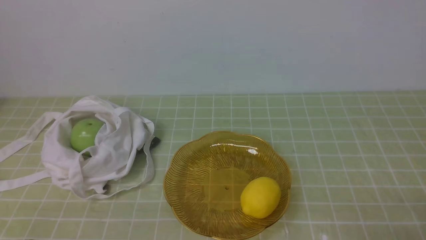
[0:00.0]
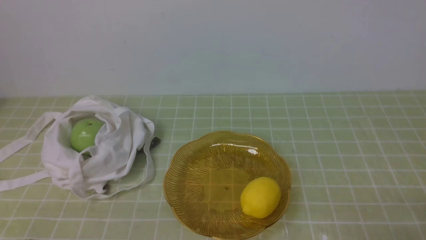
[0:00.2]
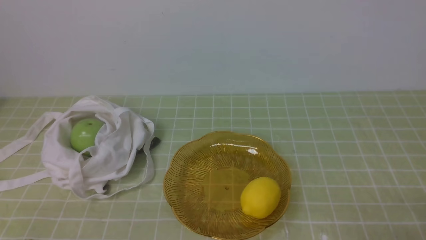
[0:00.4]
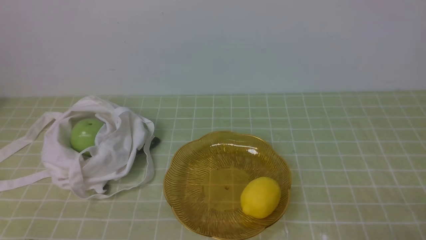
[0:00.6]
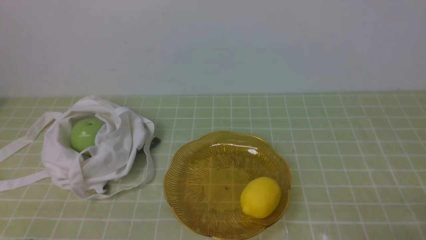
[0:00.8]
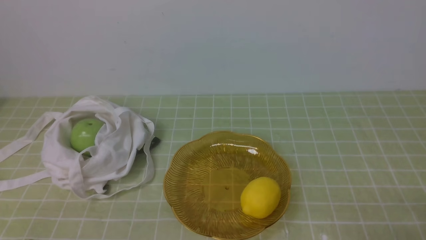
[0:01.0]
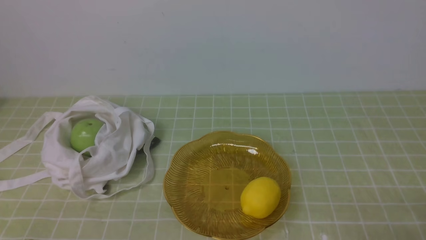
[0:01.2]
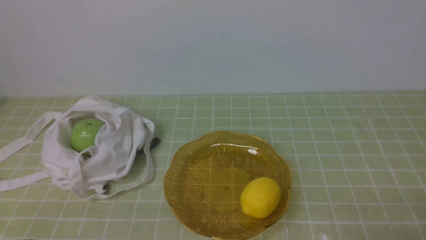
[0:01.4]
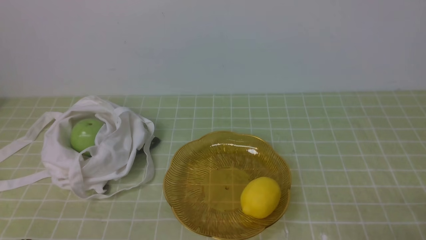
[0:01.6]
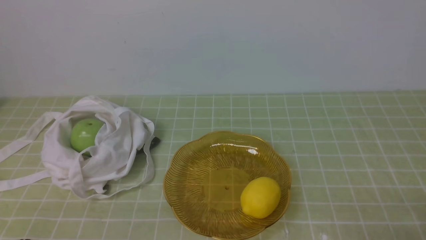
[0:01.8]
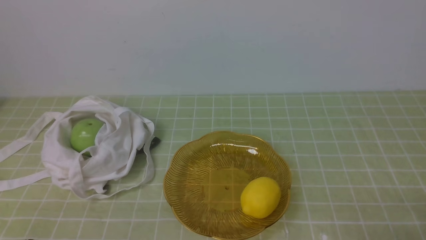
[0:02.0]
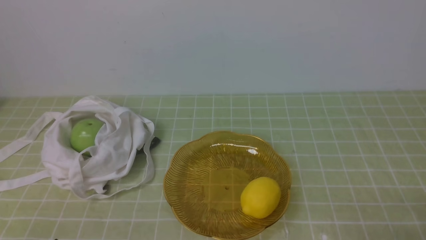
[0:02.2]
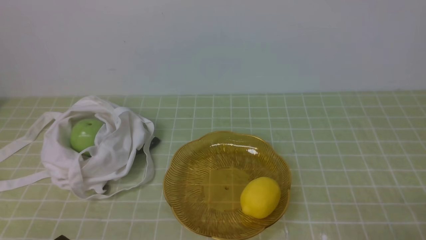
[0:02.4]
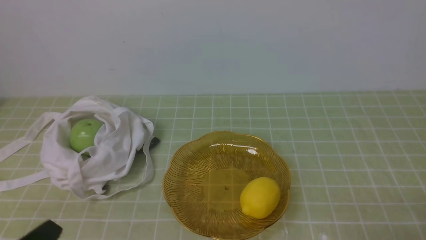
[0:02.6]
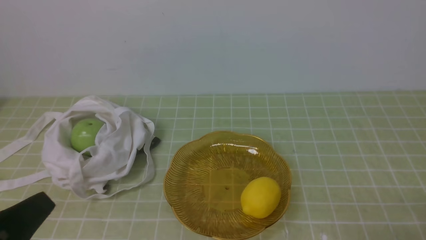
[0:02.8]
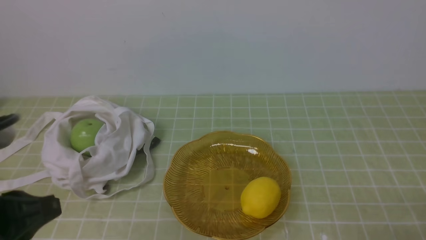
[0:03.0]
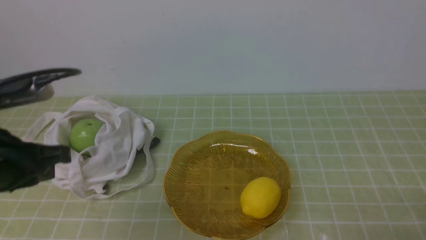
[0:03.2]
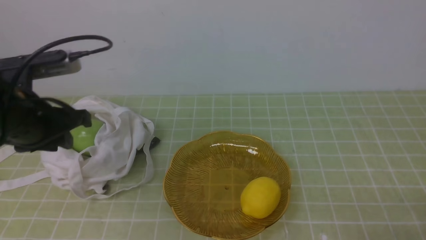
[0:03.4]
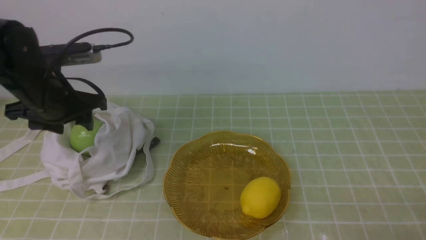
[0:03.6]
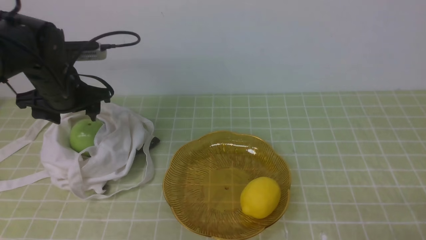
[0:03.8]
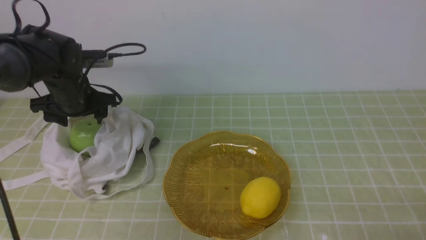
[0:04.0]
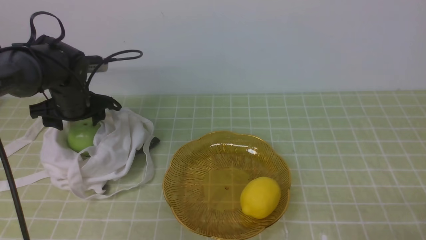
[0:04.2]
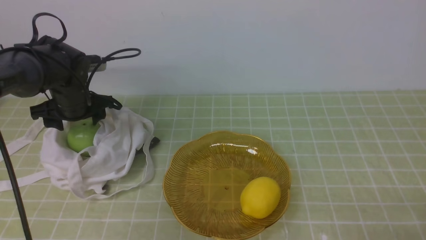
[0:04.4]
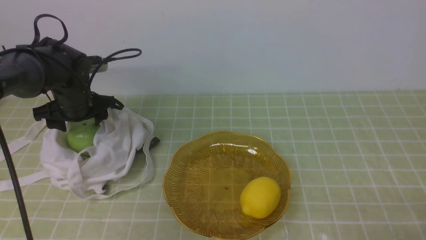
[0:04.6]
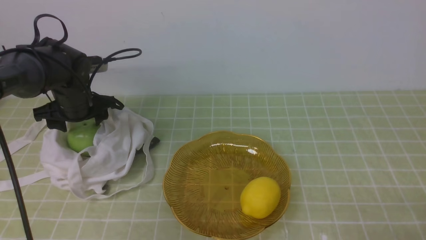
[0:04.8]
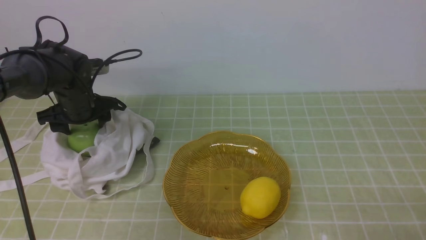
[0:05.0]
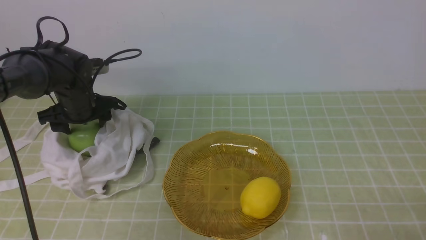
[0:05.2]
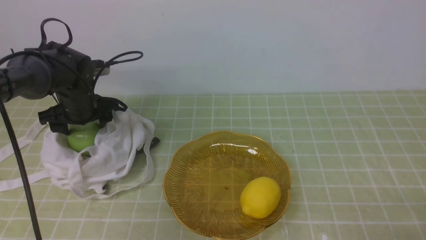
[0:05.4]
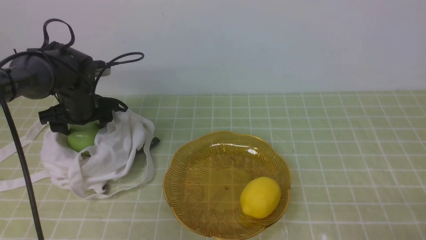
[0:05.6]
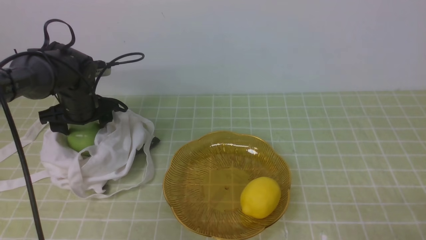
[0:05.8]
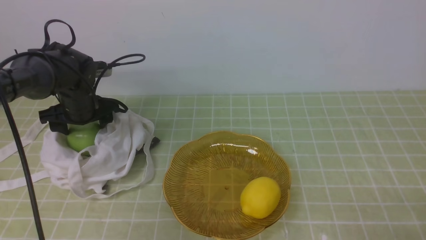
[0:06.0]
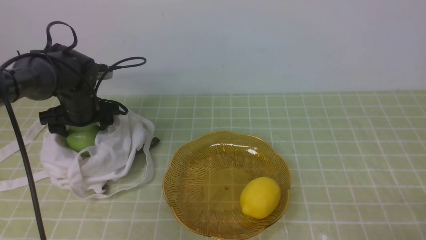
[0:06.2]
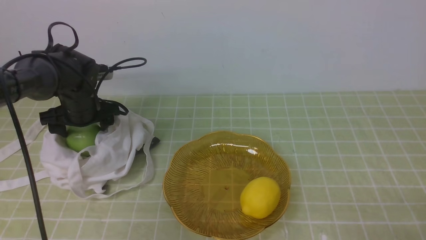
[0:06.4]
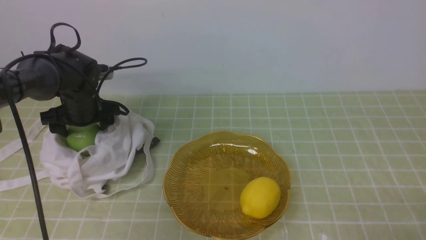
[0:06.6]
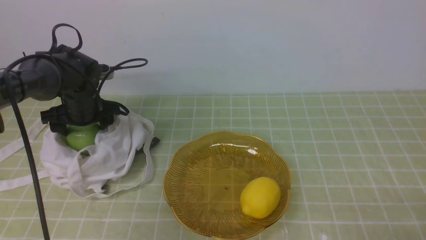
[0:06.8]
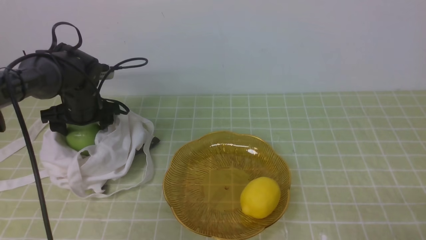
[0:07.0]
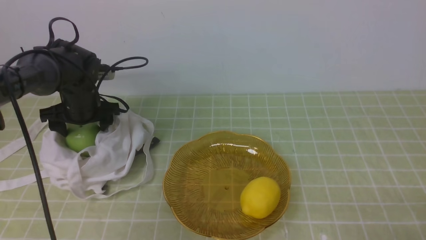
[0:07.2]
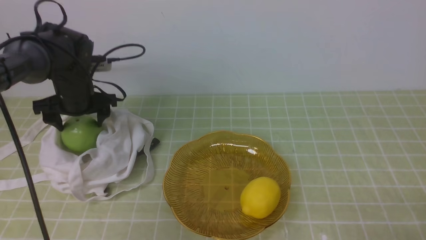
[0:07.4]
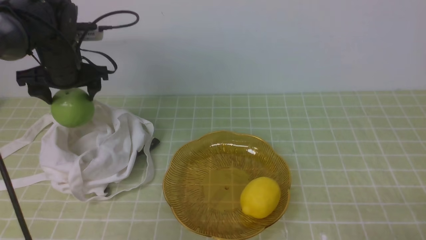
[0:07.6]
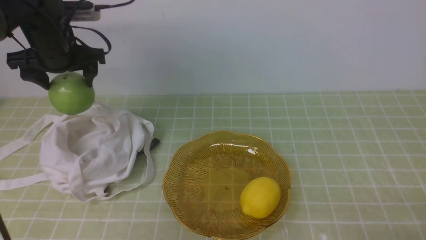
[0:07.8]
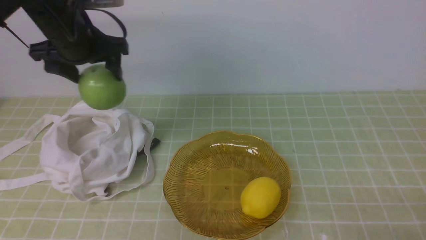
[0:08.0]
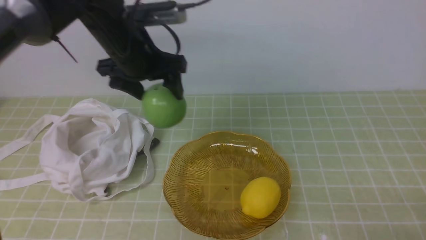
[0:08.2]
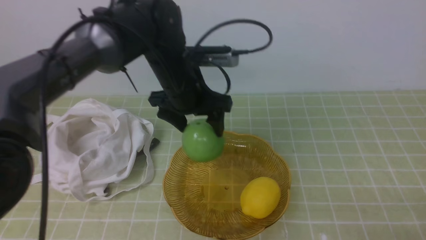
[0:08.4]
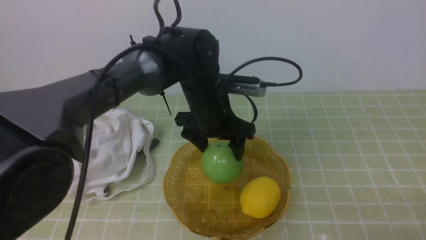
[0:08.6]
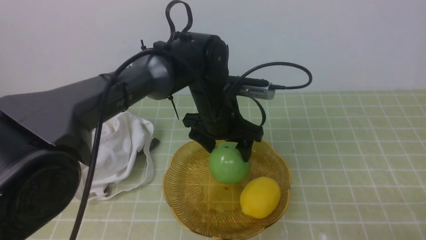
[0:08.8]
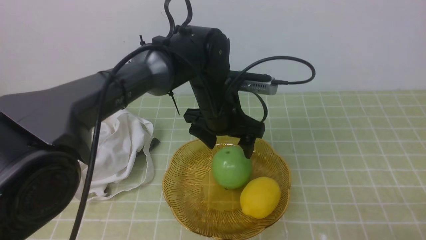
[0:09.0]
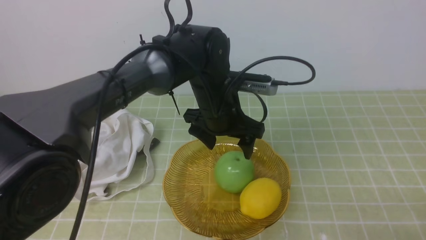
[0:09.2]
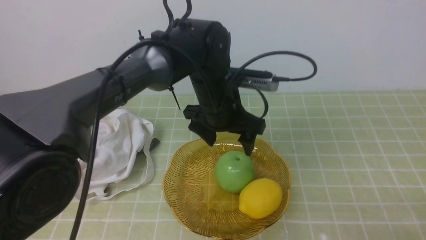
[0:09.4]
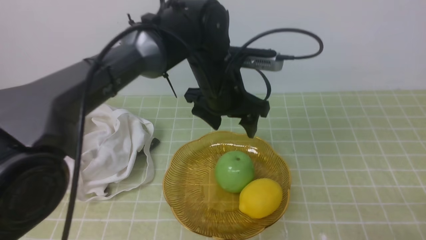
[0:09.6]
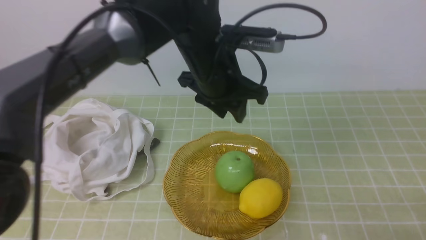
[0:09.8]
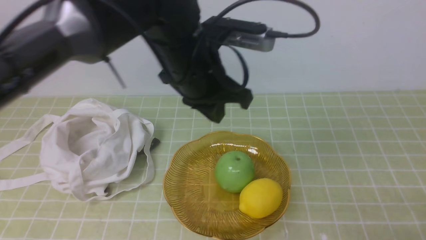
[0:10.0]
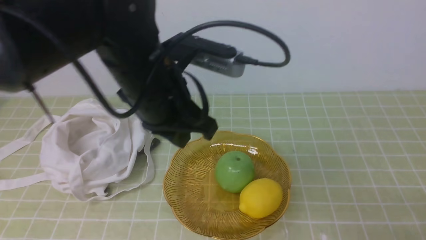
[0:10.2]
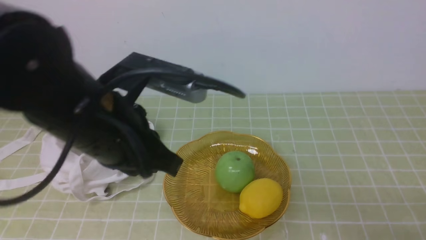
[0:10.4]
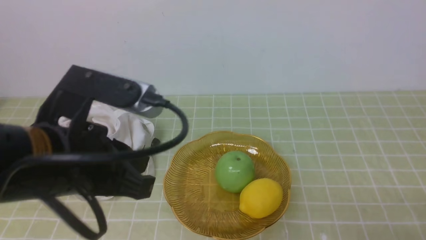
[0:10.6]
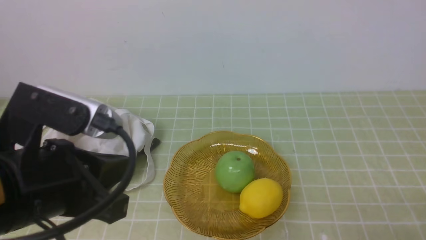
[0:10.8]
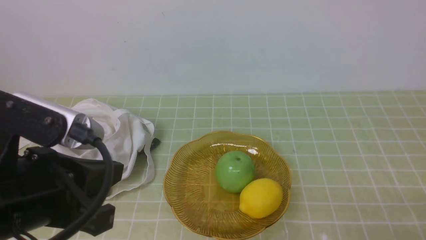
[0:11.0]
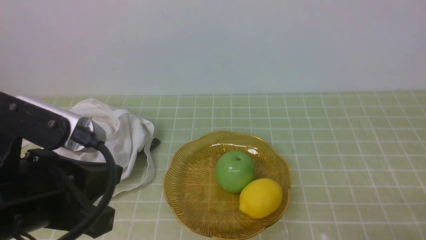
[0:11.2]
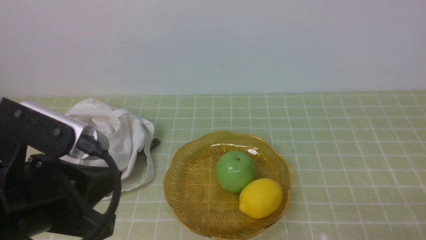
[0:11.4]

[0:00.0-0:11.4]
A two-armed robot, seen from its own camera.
Step, 0:00.0 to 0:07.2: use the left arm to grab an apple from the bag.
Step, 0:07.4 to 0:09.0: use the left arm to put the apple into the empty plate on the right.
0:01.4 to 0:02.8: The left gripper moves upward, roughly 5 cm.
0:02.8 to 0:04.2: The left gripper shifts approximately 35 cm forward, and opens its fingers.
0:04.2 to 0:07.2: There are only small adjustments of the grippers.
0:07.2 to 0:08.6: The left gripper moves to the right, approximately 20 cm.
0:08.6 to 0:10.0: The left gripper travels upward by about 5 cm, and closes its fingers.
0:10.0 to 0:11.4: The left gripper is displaced backward and to the left by roughly 25 cm.

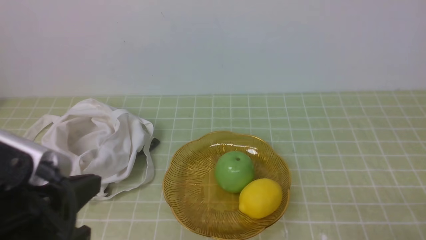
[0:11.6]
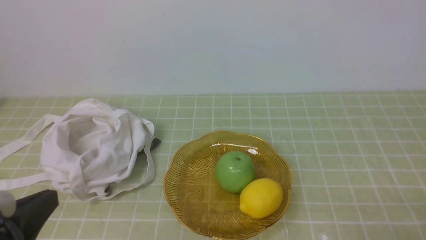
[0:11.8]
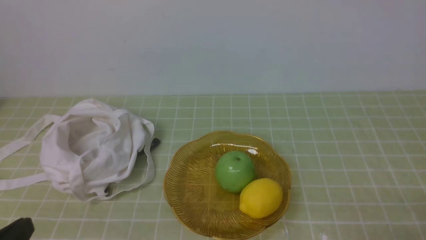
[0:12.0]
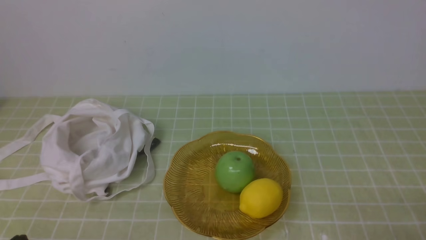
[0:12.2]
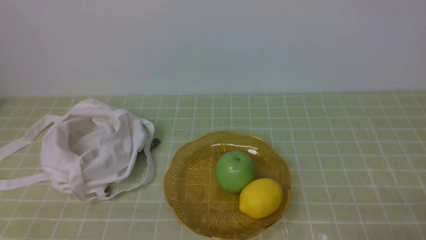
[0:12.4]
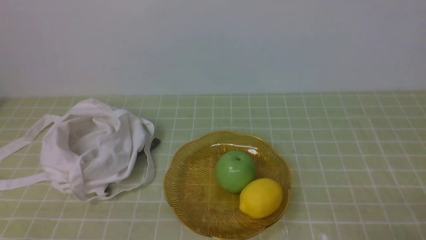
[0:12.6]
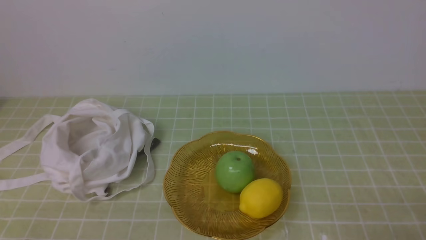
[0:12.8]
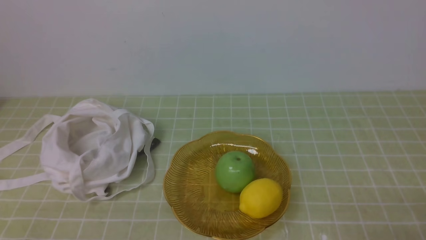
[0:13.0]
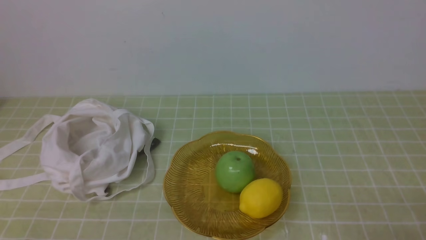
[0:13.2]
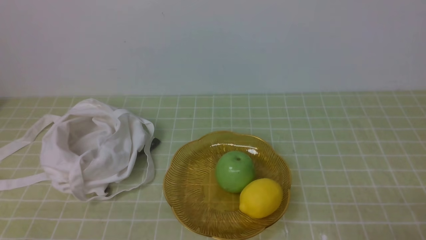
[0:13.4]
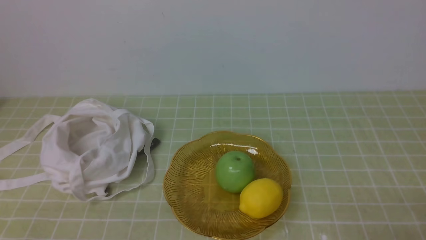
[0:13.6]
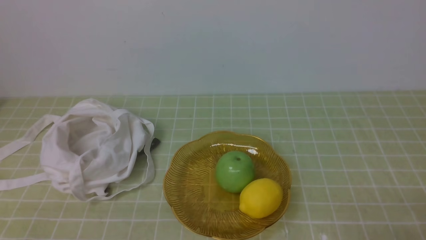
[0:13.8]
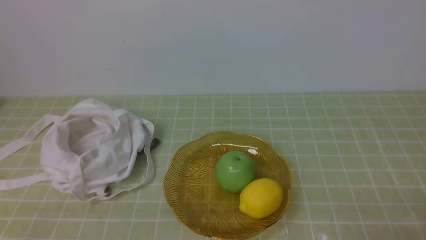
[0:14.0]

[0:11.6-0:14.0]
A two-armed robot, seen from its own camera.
0:11.6 to 0:12.8: The left gripper goes about 15 cm downward, to the left and backward.
0:12.8 to 0:14.0: Neither gripper changes place.
